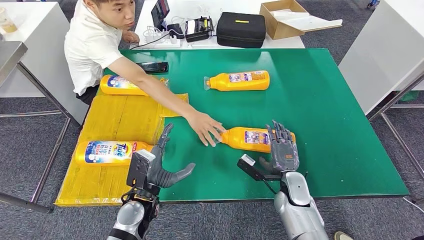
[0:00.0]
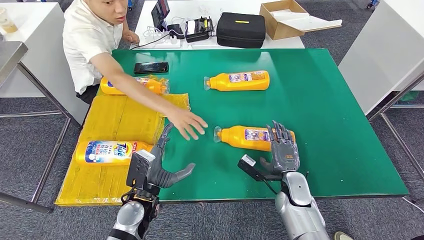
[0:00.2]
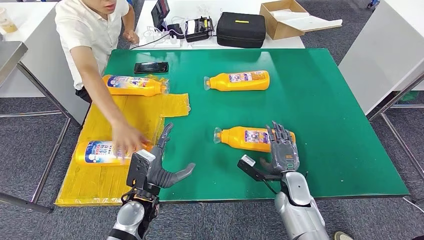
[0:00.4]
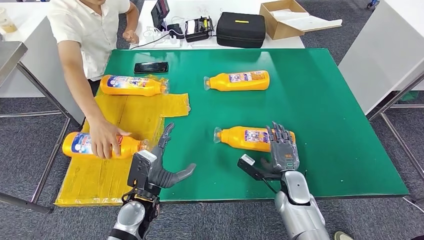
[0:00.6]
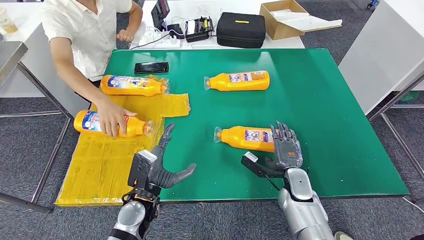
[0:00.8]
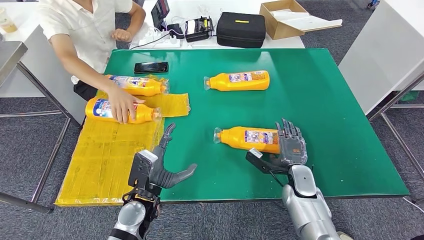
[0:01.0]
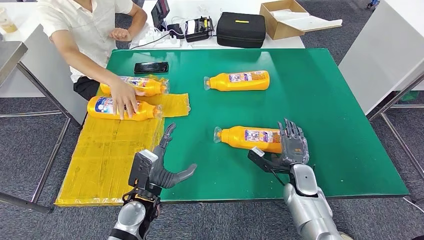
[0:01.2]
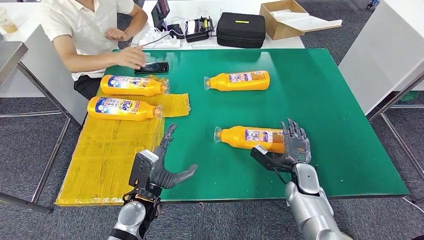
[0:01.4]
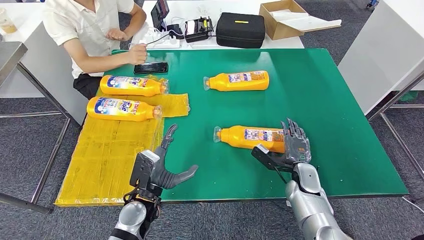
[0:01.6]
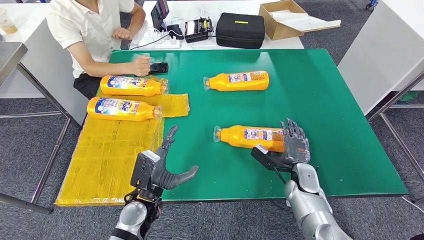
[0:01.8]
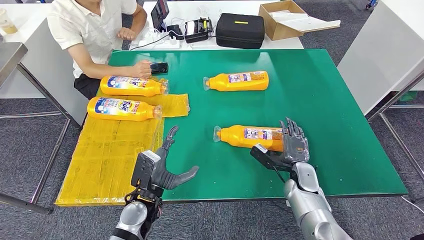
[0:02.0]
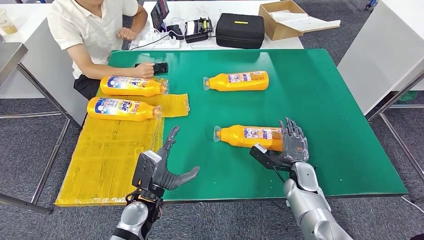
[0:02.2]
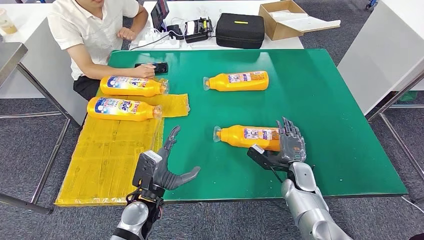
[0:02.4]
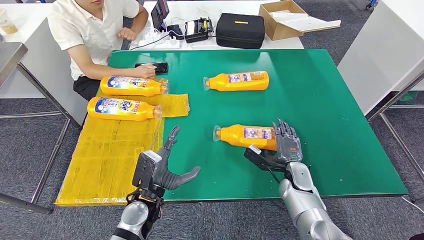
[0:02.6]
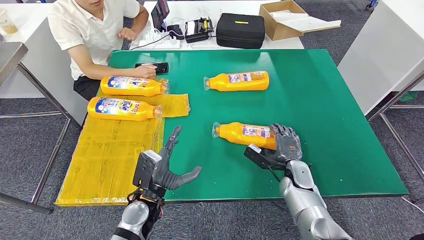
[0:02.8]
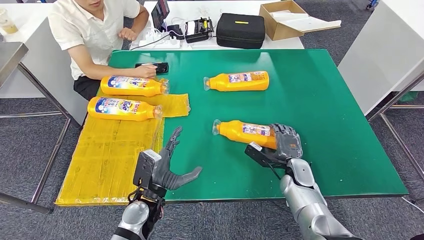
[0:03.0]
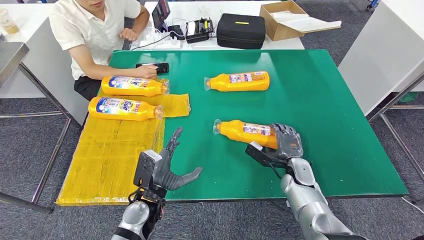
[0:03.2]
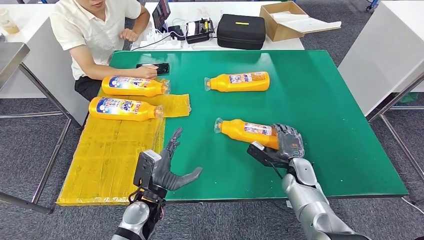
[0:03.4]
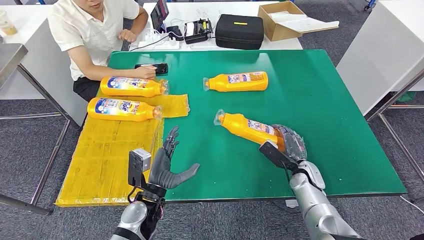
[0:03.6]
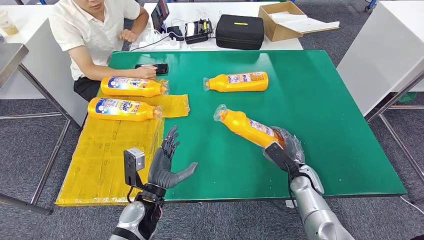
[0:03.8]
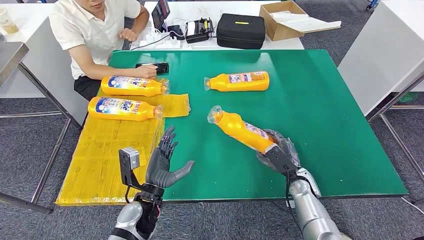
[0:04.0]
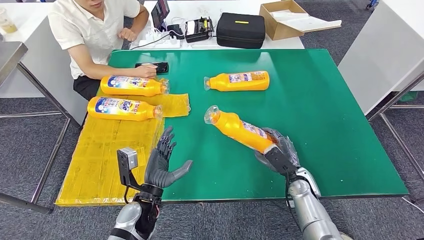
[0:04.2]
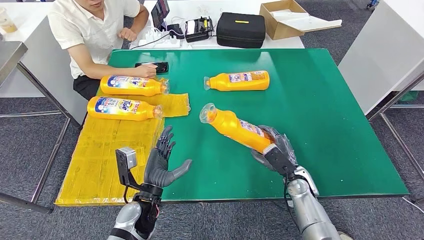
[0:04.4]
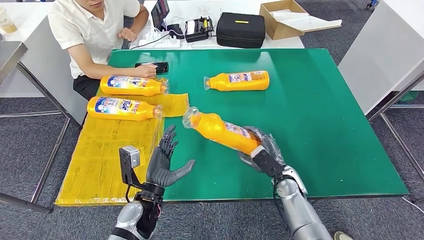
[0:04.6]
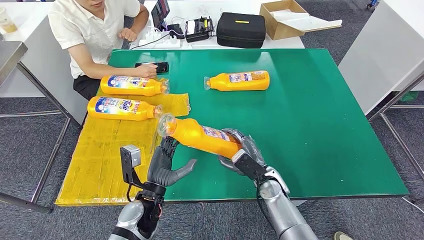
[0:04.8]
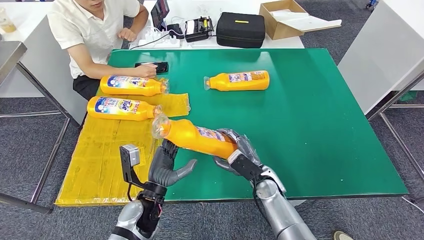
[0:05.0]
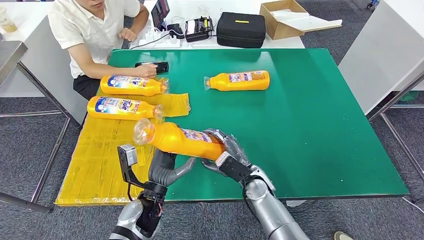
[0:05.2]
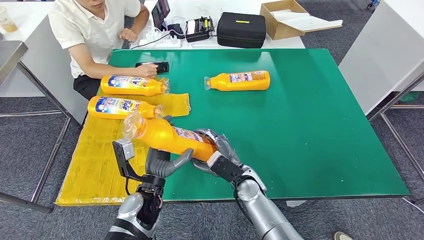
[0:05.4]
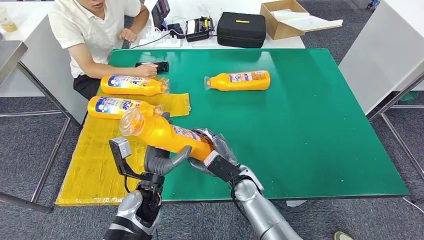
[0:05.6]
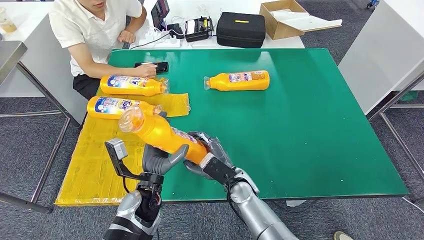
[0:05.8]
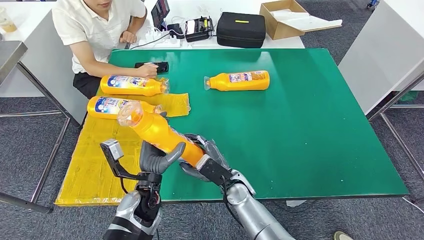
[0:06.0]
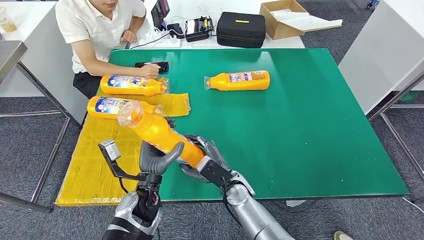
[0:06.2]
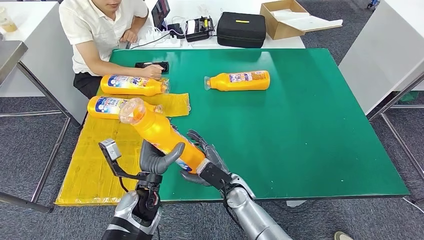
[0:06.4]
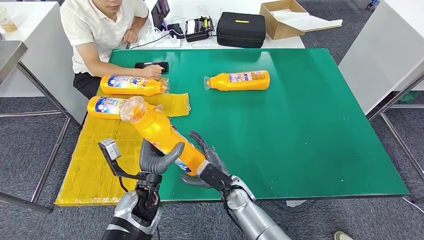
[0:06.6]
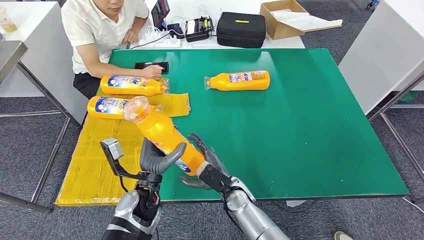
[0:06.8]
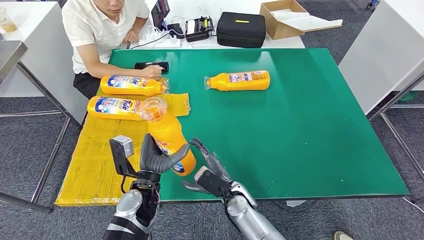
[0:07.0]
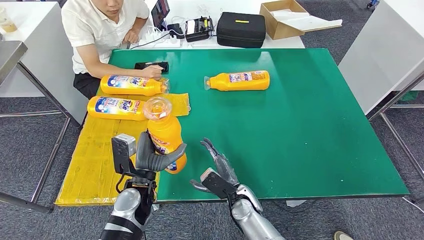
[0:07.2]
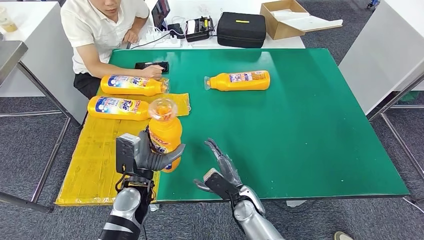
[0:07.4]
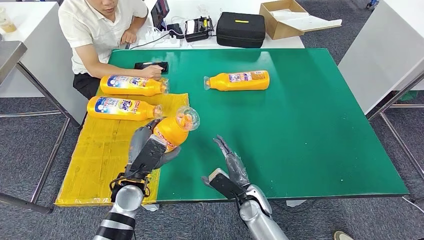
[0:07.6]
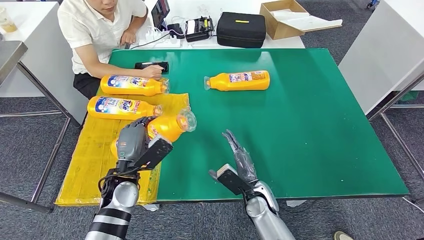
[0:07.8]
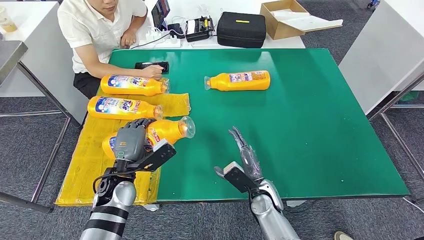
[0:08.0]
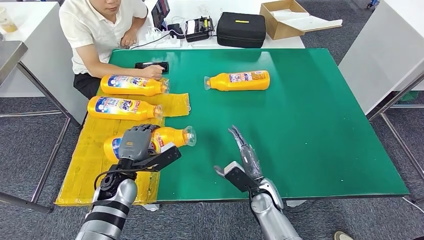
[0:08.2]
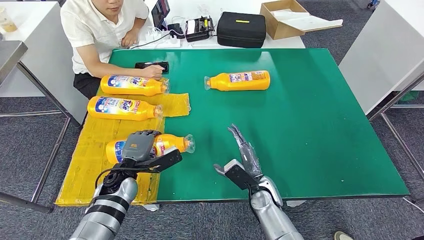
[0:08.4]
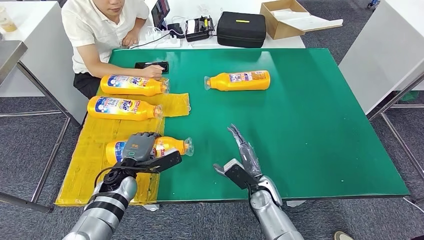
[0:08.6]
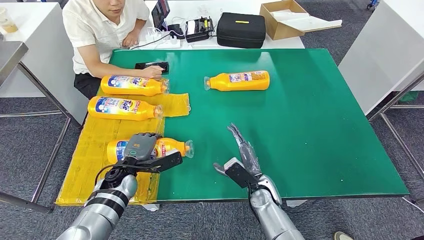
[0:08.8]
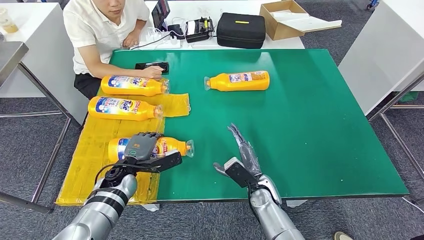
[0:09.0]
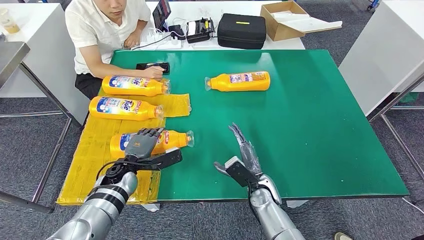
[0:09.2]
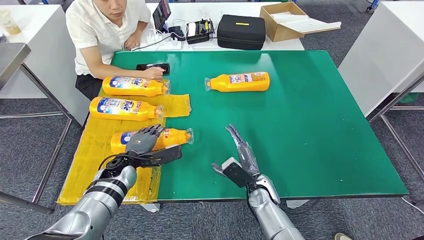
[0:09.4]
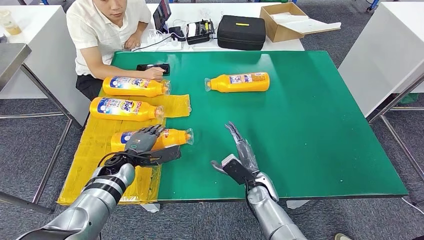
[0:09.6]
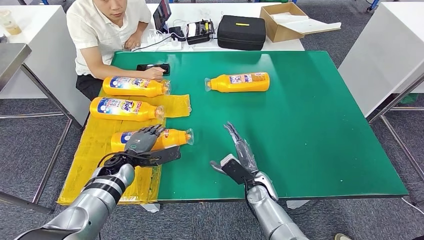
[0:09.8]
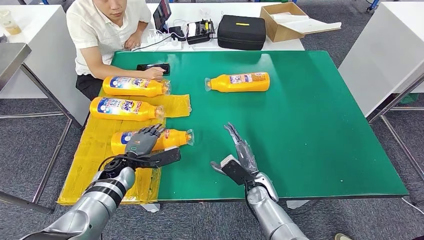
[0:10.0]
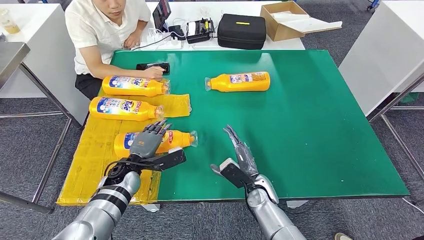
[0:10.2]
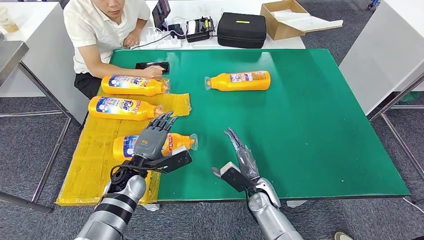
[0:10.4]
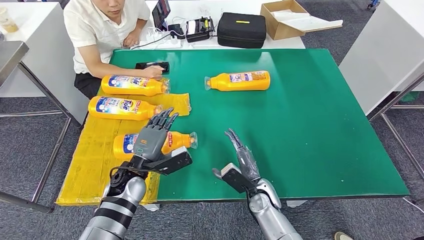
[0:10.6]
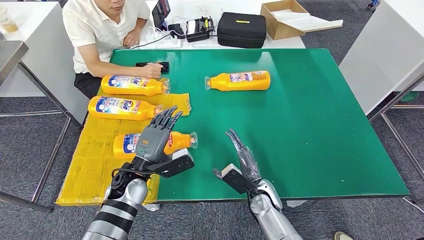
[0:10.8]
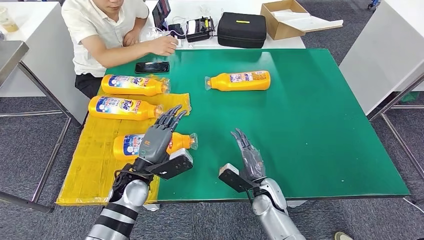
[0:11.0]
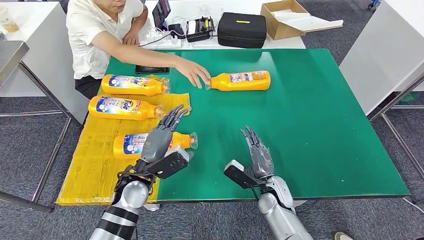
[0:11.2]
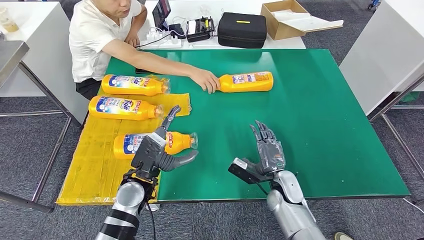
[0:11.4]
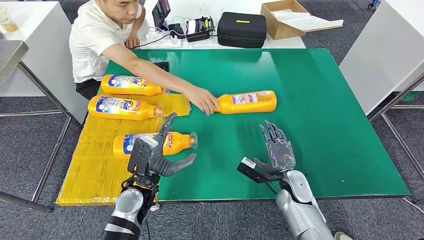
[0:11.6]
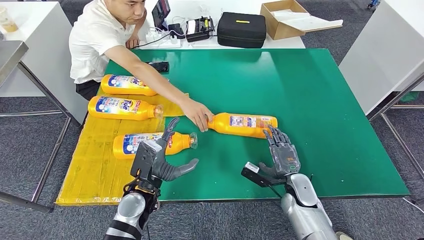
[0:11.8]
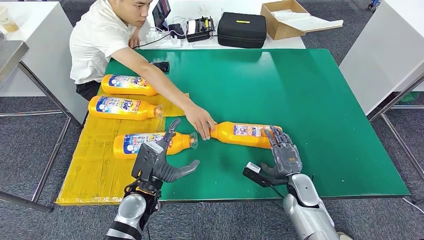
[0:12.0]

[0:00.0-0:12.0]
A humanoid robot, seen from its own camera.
Step, 0:01.8 to 0:06.0: Pick up the fast-moving consumer goods bottle from the table.
Step, 0:06.2 to 0:11.0: Flip the fast-moving consumer goods bottle to the front side.
0:00.0 to 0:01.6: The right hand moves to the right, some 5 cm.
0:01.6 to 0:03.0: The hands make only small movements.
0:04.4 to 0:06.0: The right hand is displaced to the left by some 20 cm.
0:06.0 to 0:07.6: The right hand ends up approximately 5 cm from where it was.
0:07.6 to 0:09.0: The left hand moves forward, downward and to the left, about 10 cm.
0:09.0 to 0:10.4: The hands make only small movements.

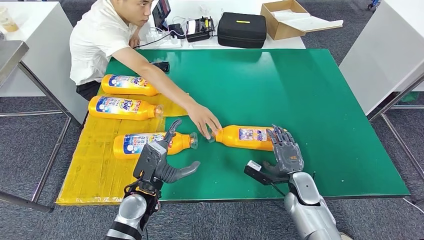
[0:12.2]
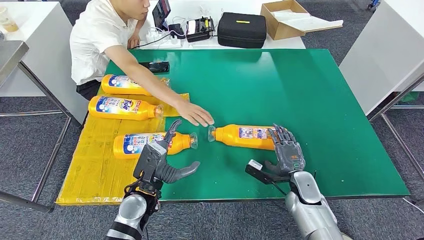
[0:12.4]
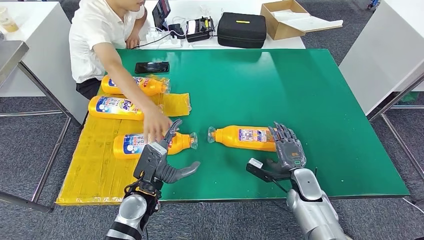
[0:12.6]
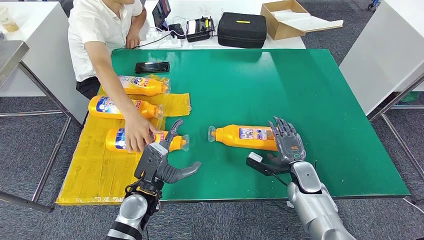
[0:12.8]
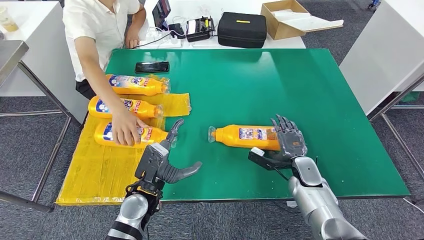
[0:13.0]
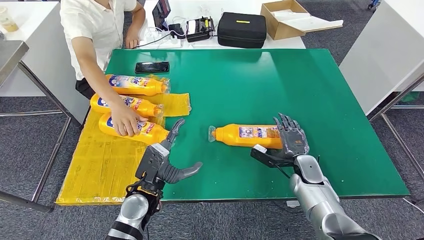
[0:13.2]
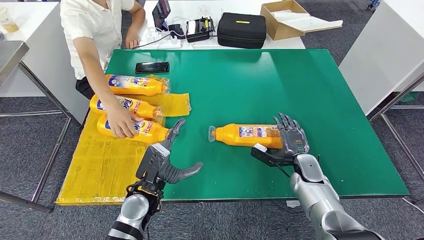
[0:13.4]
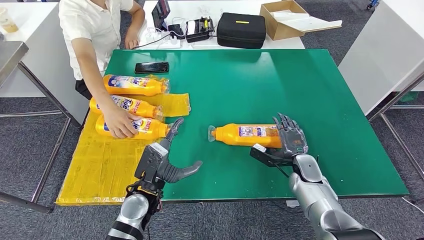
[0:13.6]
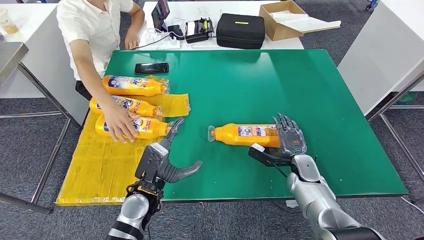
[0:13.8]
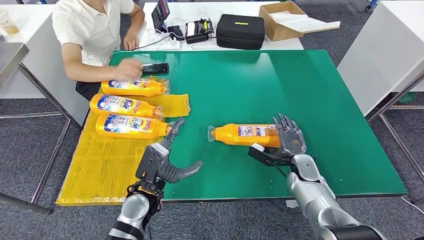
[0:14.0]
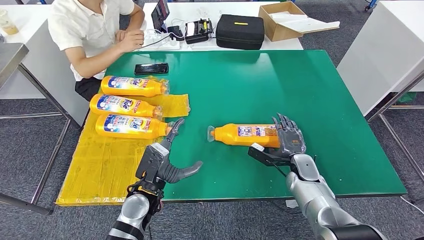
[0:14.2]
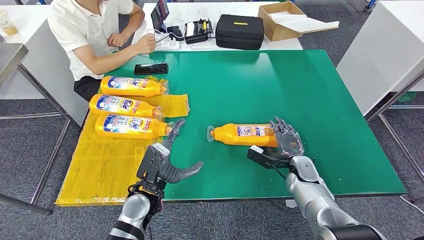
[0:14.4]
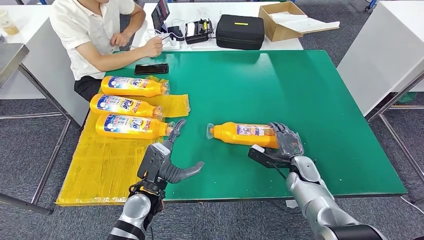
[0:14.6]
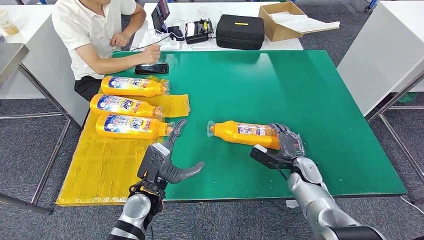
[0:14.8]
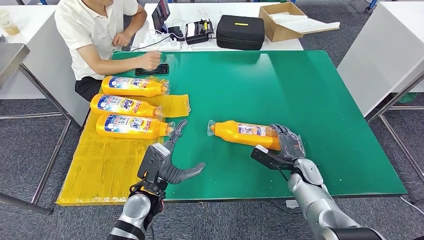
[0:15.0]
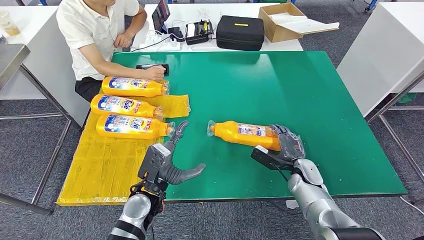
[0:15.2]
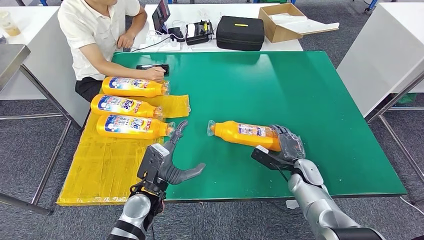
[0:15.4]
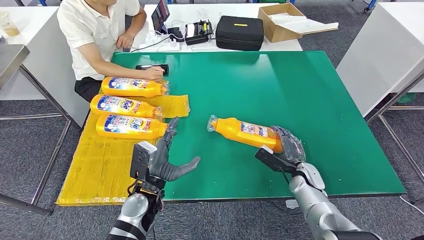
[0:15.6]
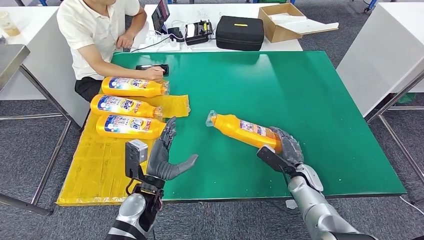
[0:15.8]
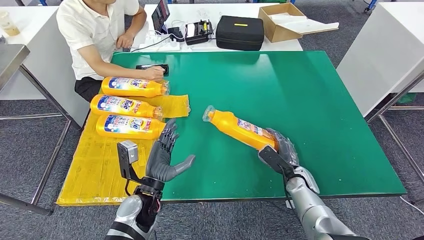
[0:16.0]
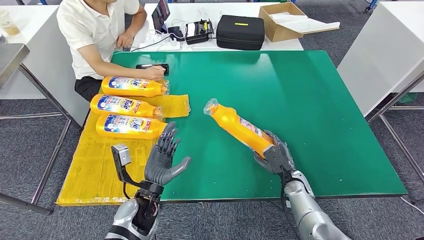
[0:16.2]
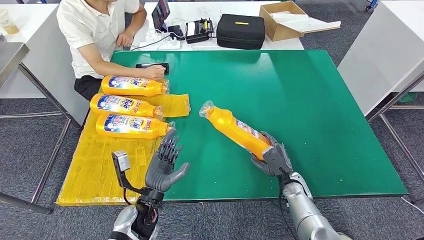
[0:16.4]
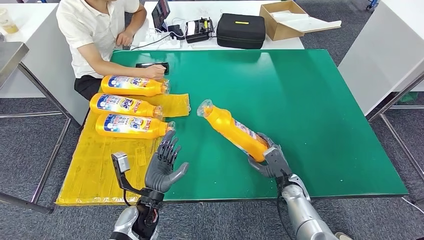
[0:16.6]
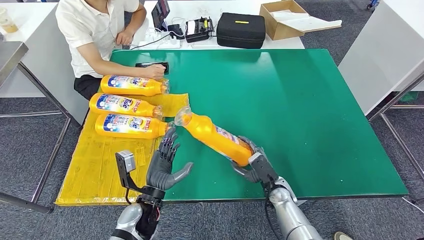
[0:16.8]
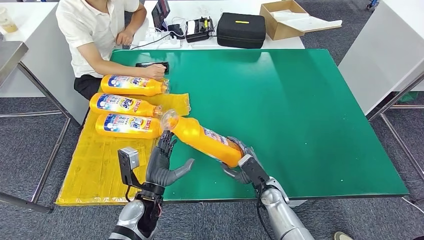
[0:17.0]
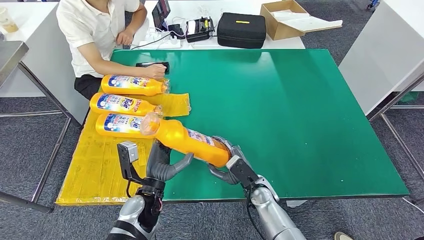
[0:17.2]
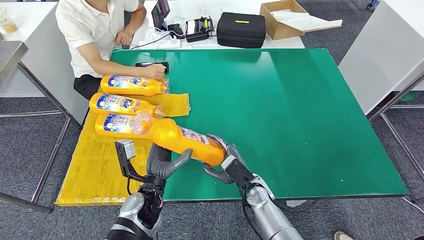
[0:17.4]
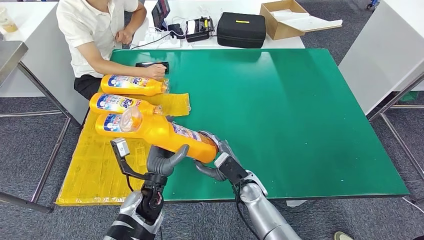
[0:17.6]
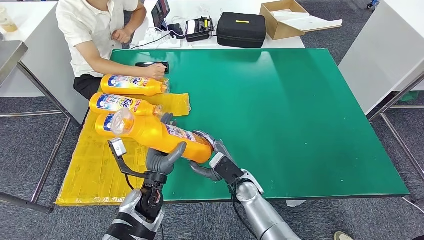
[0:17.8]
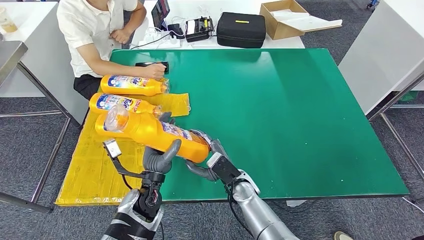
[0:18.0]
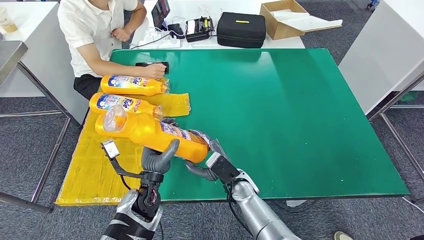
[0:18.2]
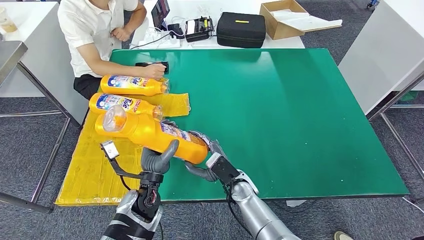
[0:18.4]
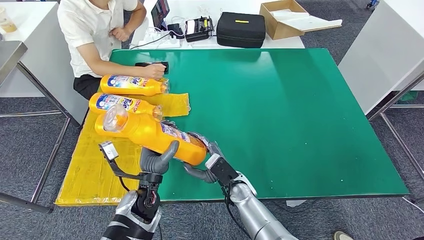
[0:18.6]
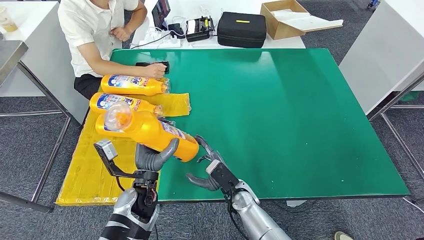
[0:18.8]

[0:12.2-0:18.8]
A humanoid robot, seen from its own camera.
Step, 0:14.8 to 0:17.6: Pick up the fast-moving consumer goods bottle from the table.
0:13.8 to 0:15.4: There are only small adjustments of the hands.
0:17.2 to 0:18.8: The right hand heads to the left, covering roughly 5 cm.
